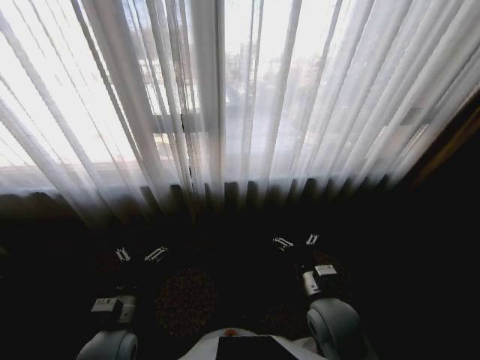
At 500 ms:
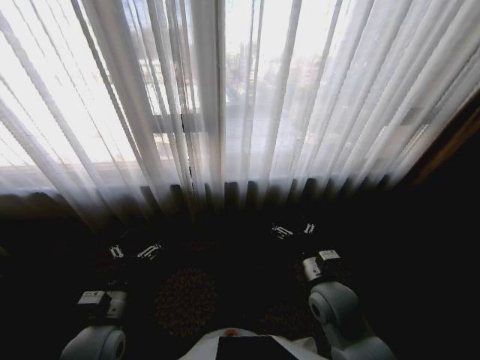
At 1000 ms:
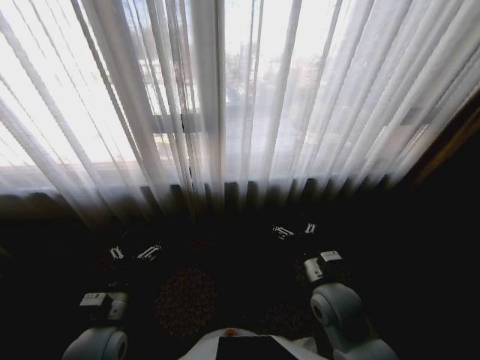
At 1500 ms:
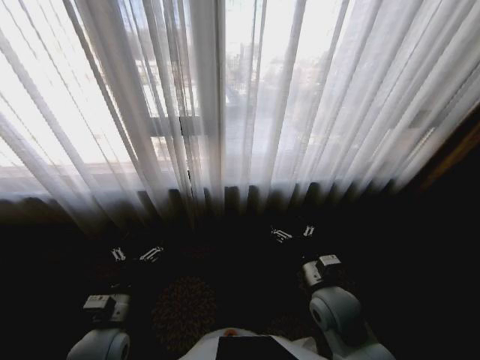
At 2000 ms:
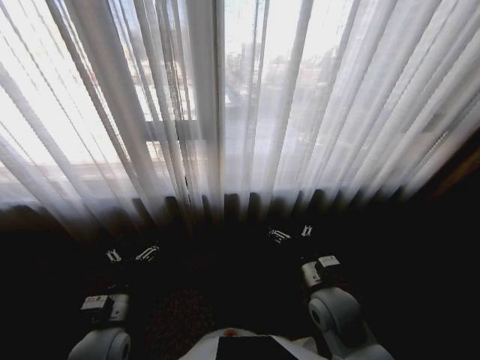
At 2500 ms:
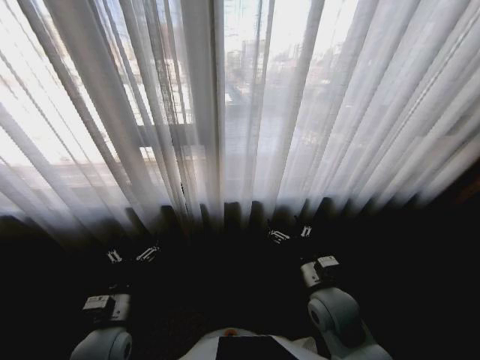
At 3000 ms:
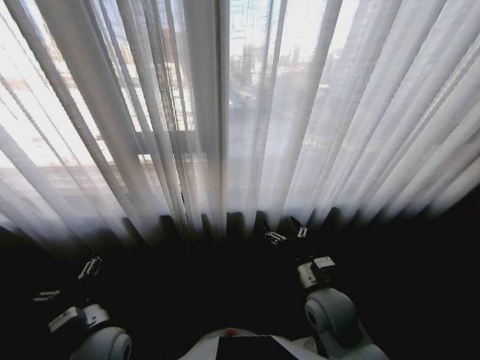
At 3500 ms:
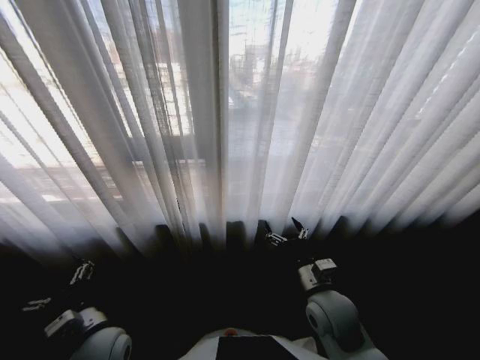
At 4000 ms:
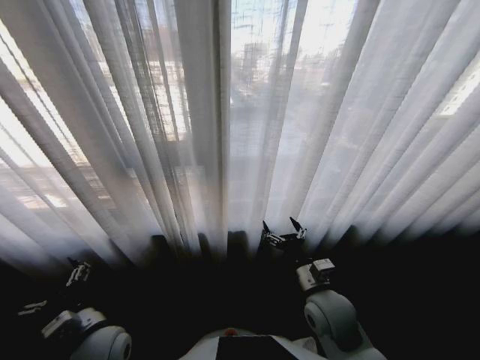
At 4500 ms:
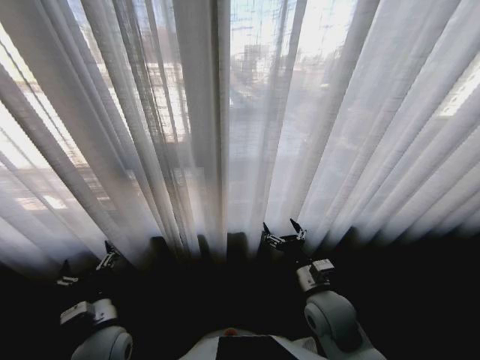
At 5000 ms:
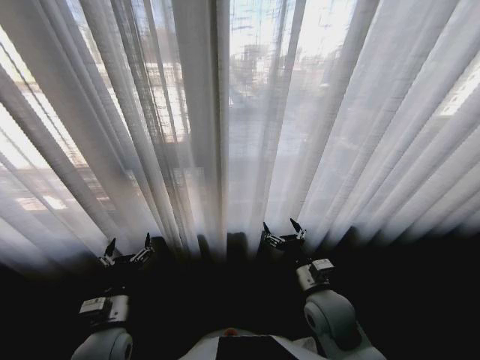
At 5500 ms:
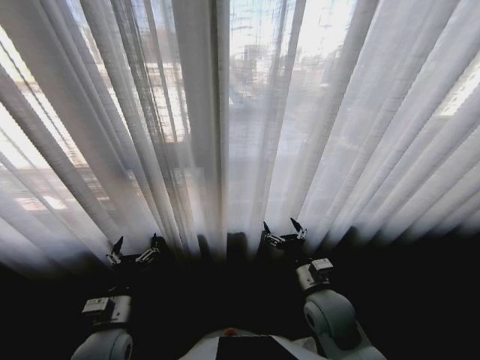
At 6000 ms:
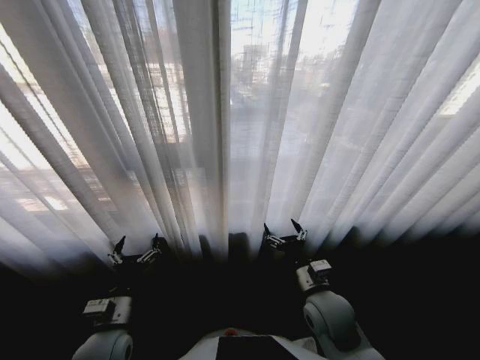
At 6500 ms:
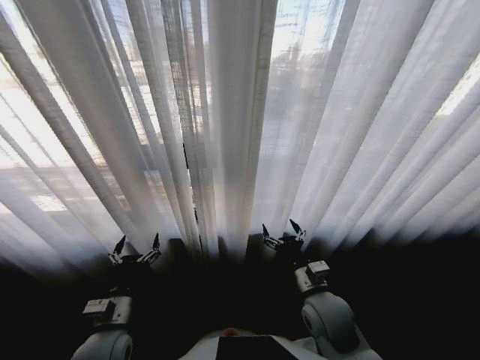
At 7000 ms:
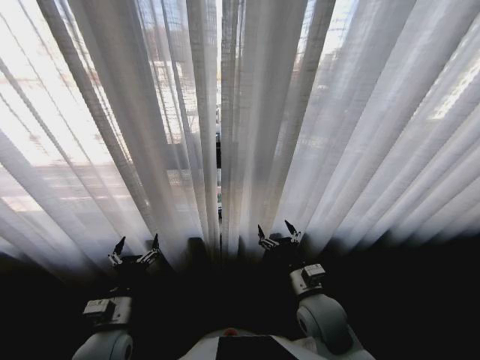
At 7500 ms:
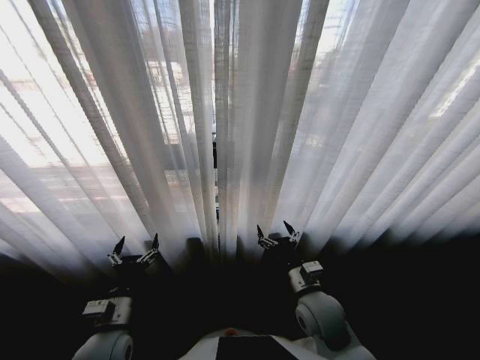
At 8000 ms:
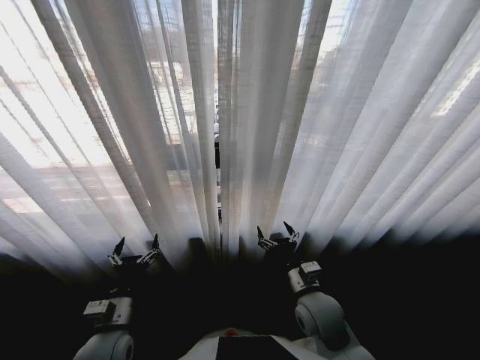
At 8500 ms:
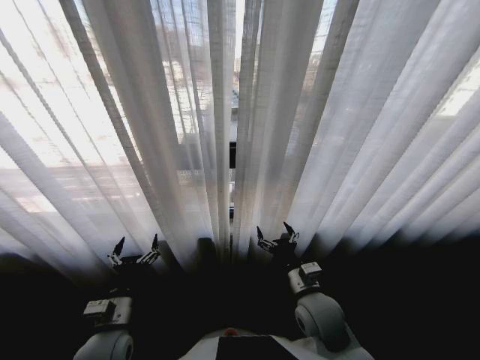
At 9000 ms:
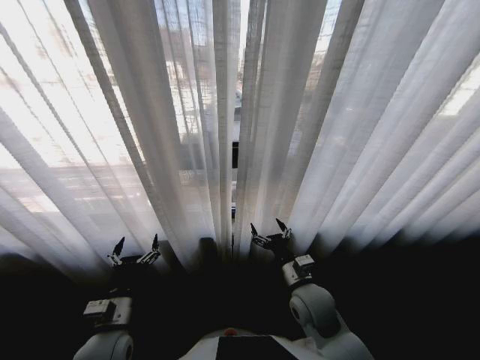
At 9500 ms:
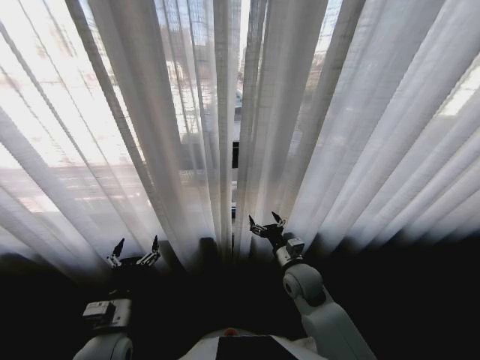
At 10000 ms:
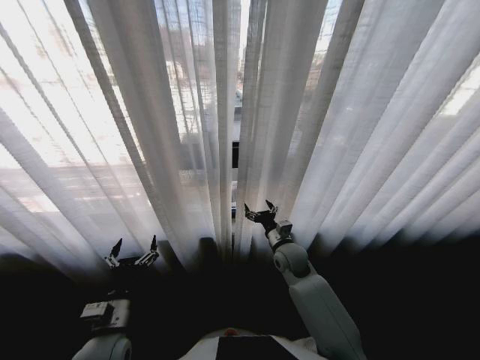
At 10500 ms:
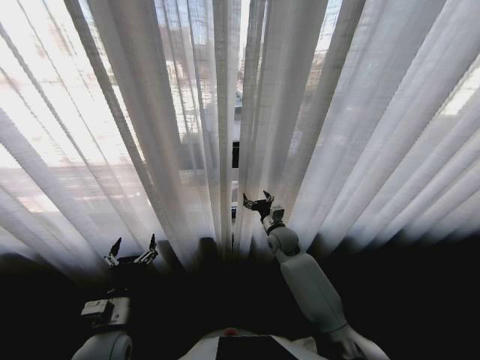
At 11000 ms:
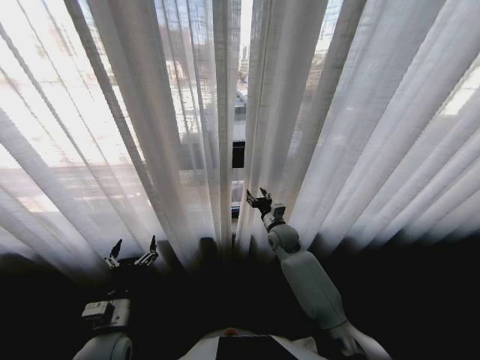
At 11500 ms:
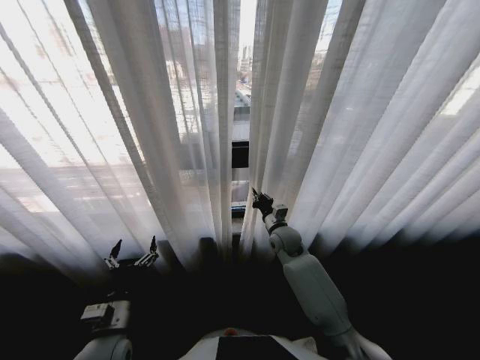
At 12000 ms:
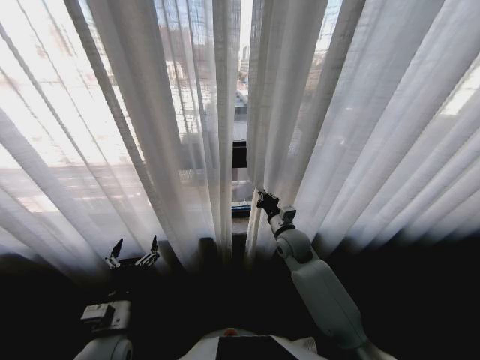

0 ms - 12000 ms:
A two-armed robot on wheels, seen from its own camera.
Task of the whole recording: Open the curtains by pulling them apart, changing their state from closed to fully open.
8000 ms - 10000 ms: The right gripper travels forward by about 15 cm.
10000 ms - 12000 ms: The right gripper closes up.

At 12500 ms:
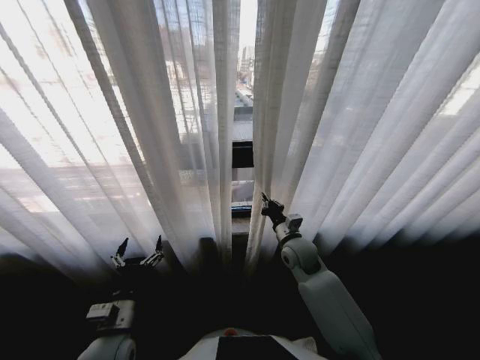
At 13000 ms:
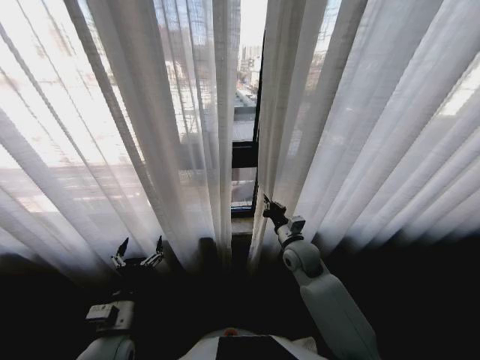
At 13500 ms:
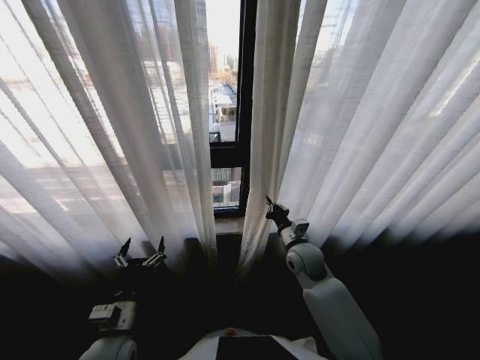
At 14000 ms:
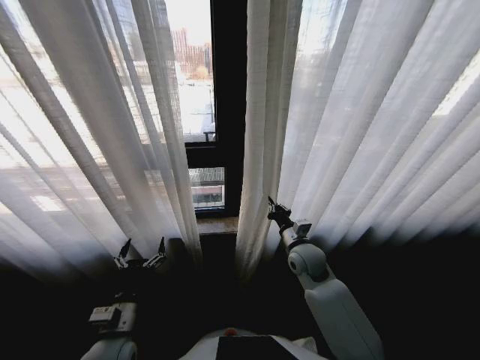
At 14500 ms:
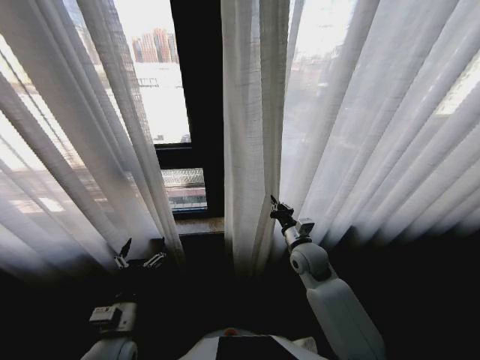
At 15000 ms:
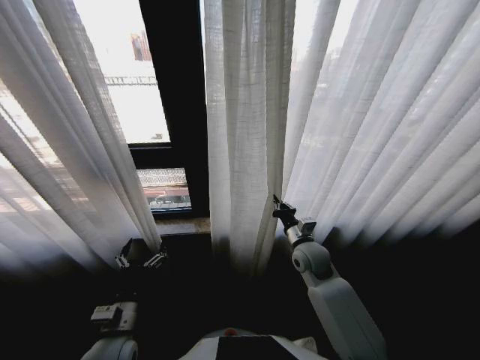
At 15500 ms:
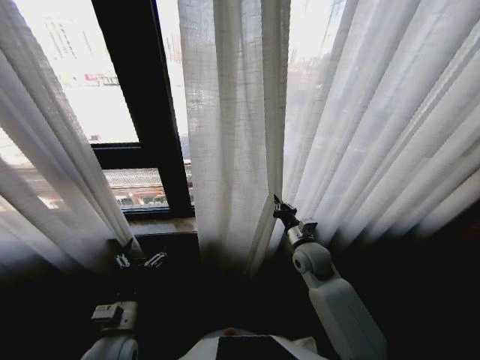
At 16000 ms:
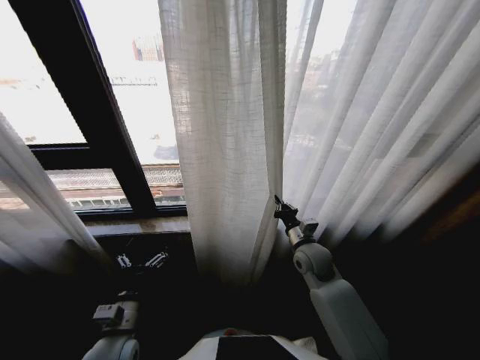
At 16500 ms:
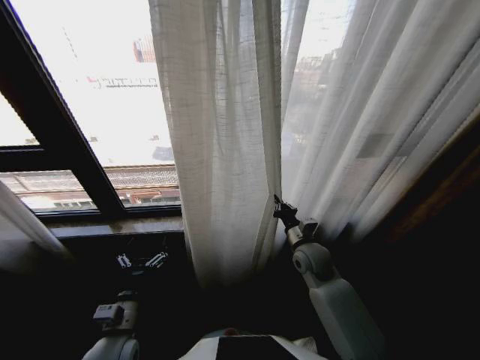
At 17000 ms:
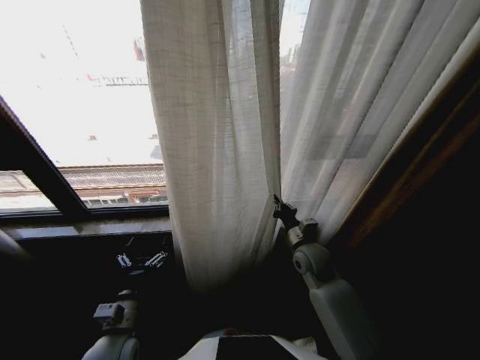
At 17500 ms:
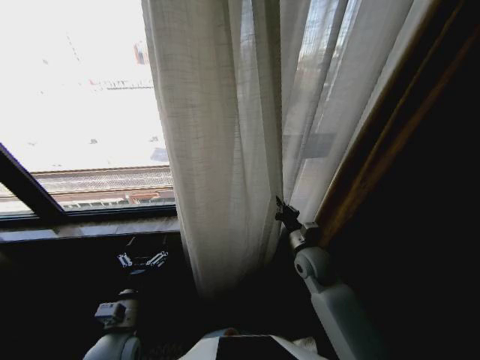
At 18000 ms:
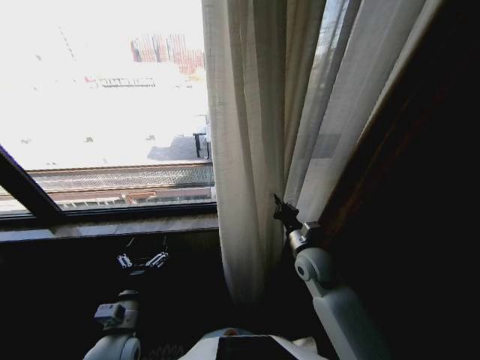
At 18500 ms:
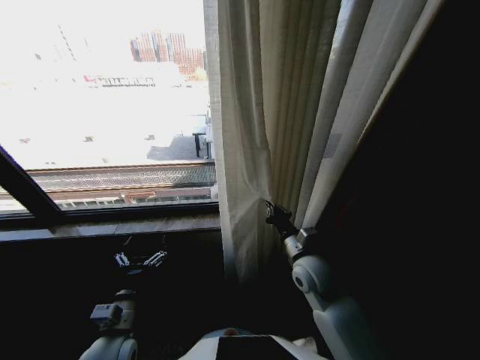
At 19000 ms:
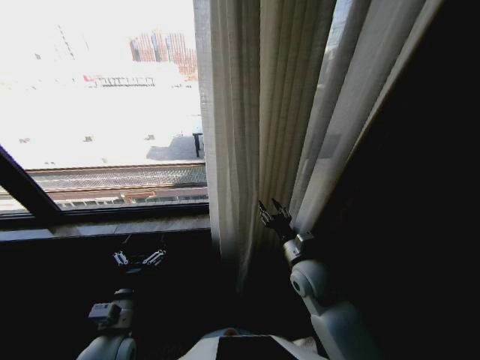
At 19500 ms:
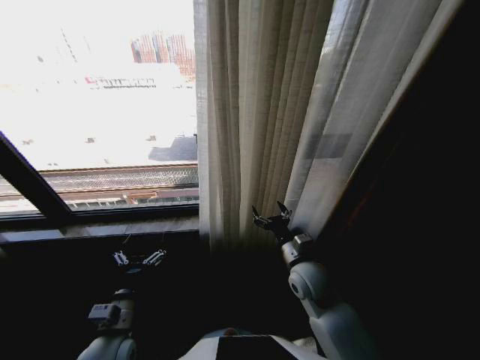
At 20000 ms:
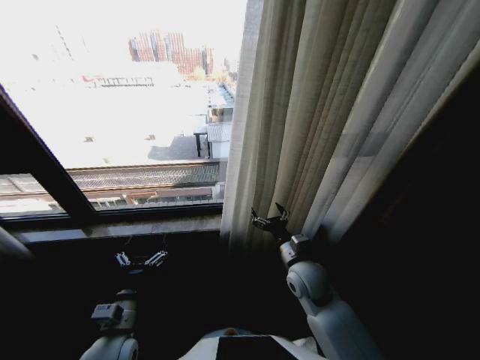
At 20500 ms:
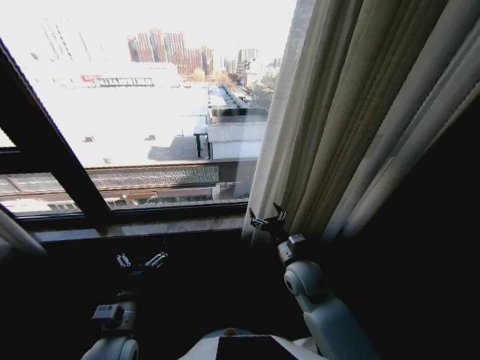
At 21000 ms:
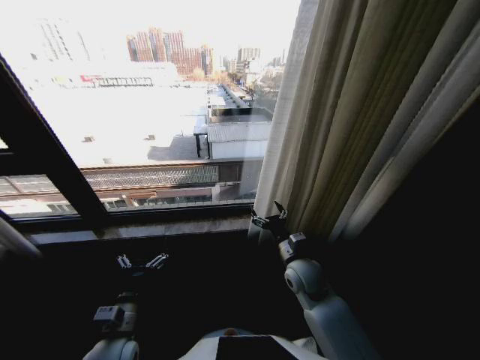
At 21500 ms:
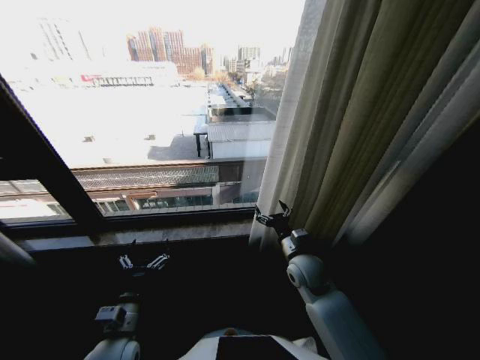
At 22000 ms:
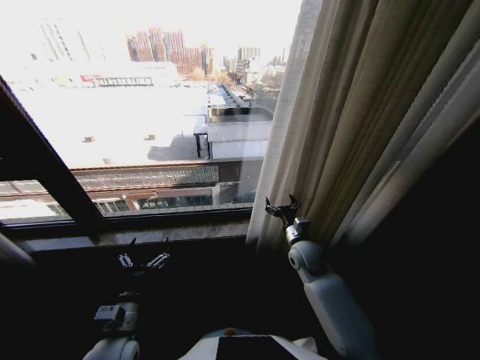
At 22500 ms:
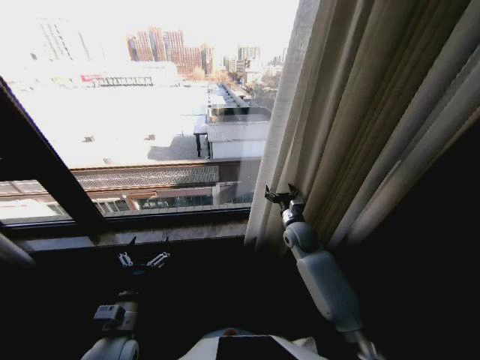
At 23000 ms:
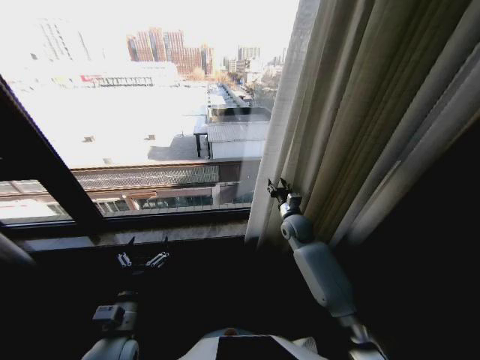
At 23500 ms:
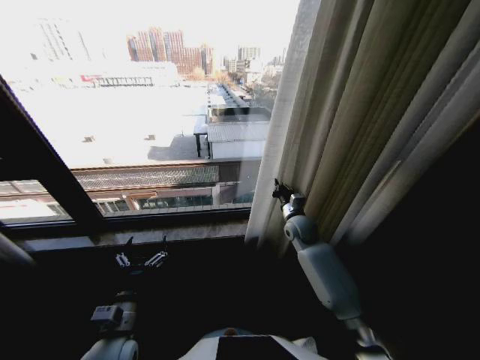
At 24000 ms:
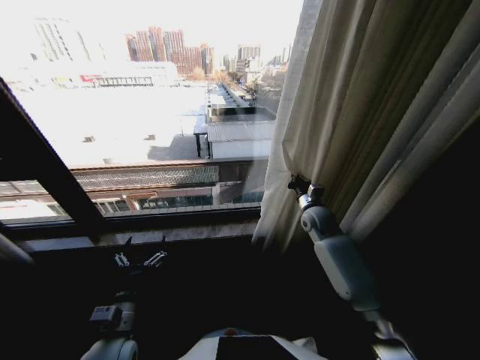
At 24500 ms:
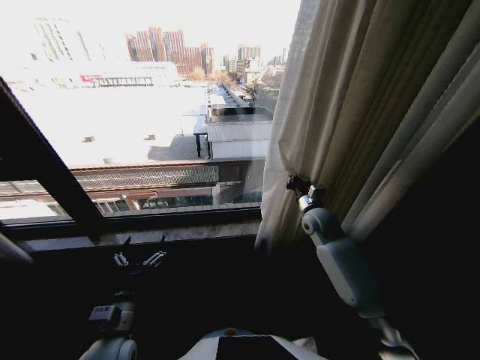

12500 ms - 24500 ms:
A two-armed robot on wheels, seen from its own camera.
Task of the whole recording: Open the curtains by pulling them apart, changing their state from closed to fully open.
16500 ms - 18500 ms: The right gripper moves backward, approximately 5 cm.
18500 ms - 20500 ms: The right gripper opens.
20500 ms - 22500 ms: The right gripper is displaced forward by about 15 cm.
22500 ms - 24500 ms: The right gripper goes about 5 cm to the right and upward, and closes up.

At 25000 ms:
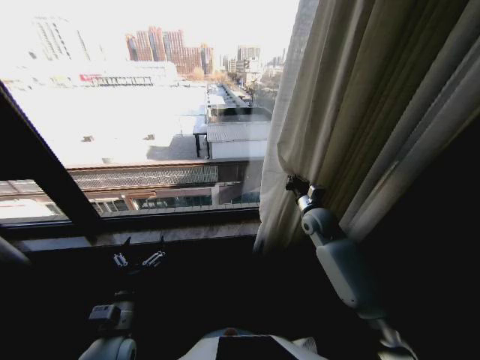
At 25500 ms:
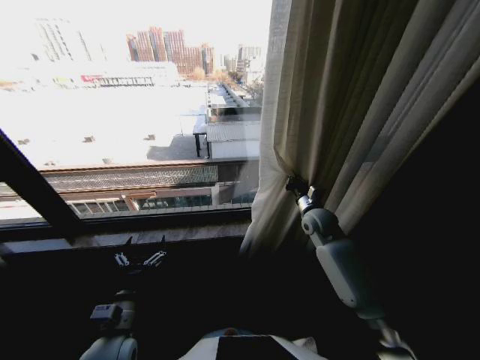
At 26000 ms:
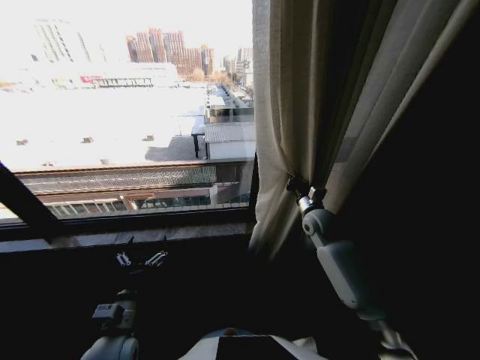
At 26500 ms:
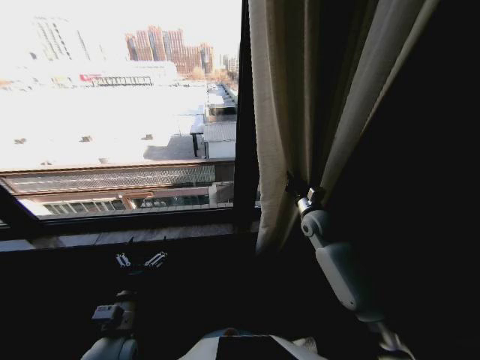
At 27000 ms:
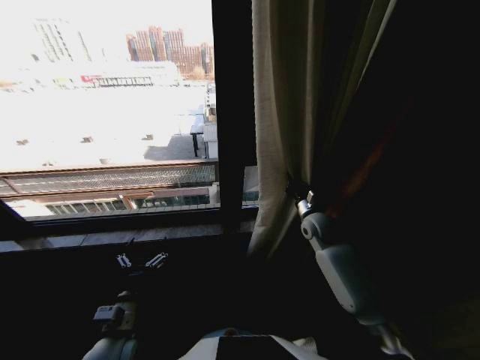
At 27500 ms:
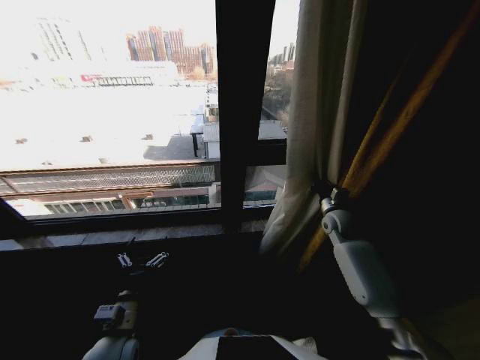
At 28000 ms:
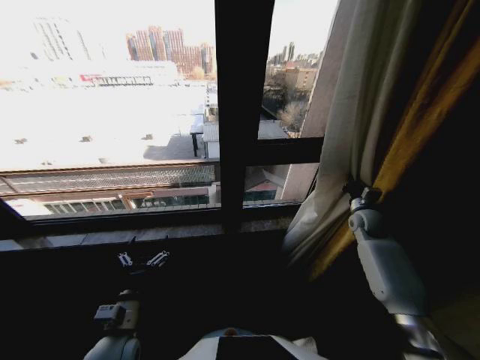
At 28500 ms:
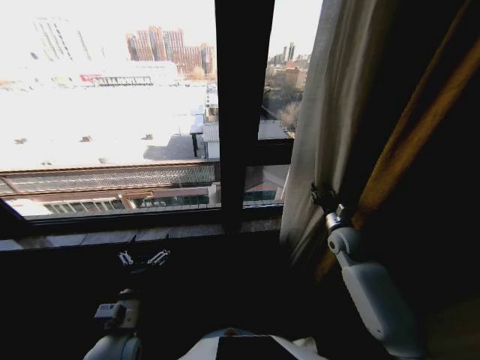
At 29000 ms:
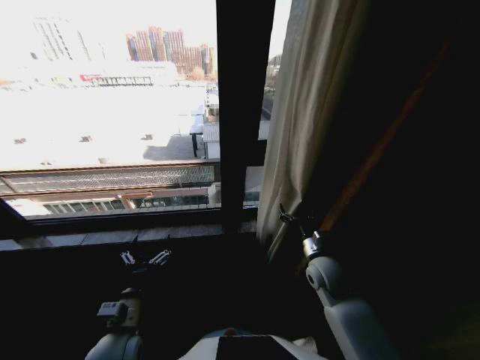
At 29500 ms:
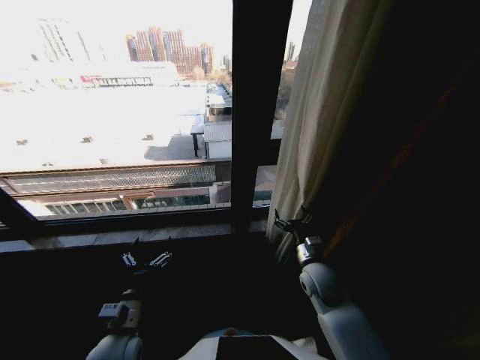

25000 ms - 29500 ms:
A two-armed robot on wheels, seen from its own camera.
Task of the whole recording: Open the curtains by pulling them apart, changing their state from closed to fully open.
27000 ms - 29500 ms: The right gripper is displaced backward by about 15 cm, travels to the right and back again, roughly 15 cm each way, and opens its fingers.
